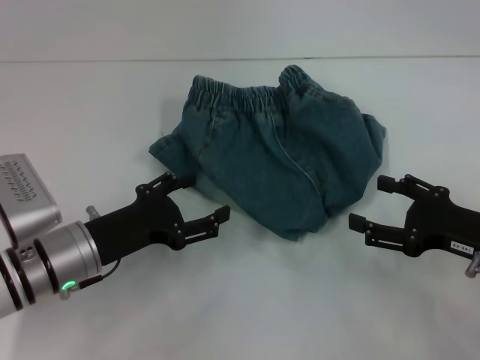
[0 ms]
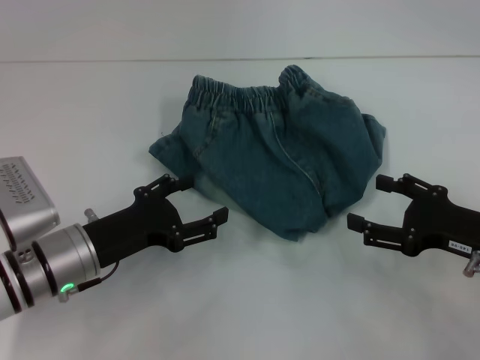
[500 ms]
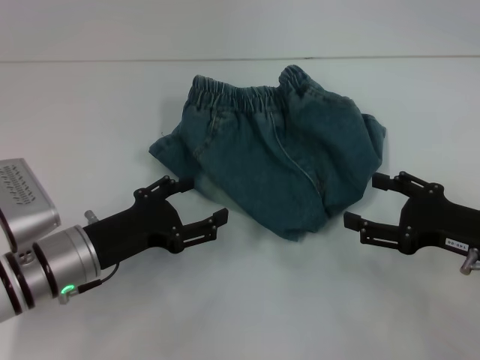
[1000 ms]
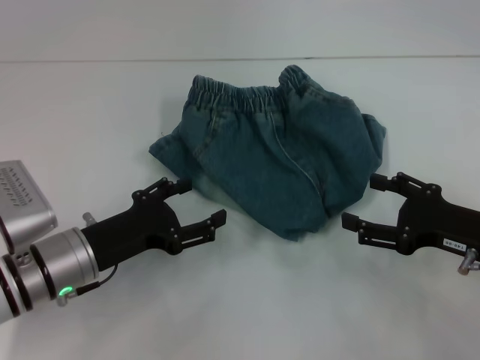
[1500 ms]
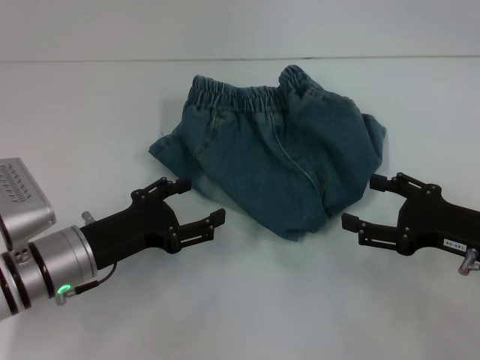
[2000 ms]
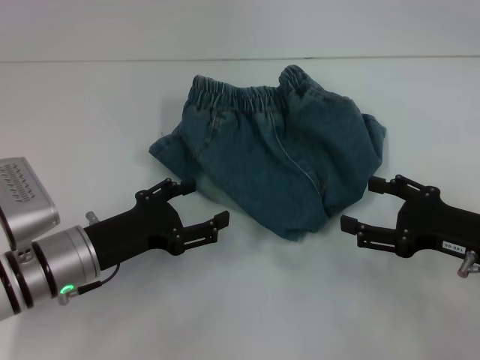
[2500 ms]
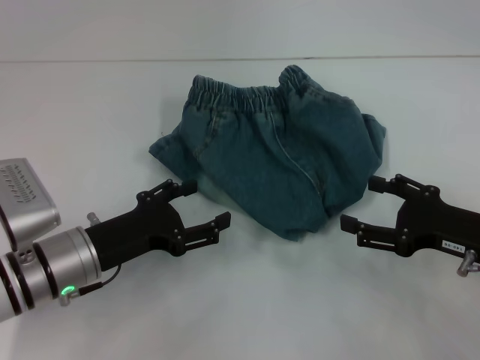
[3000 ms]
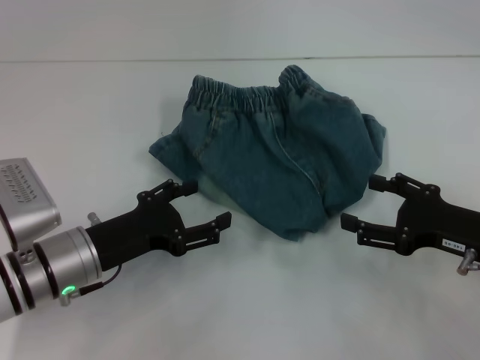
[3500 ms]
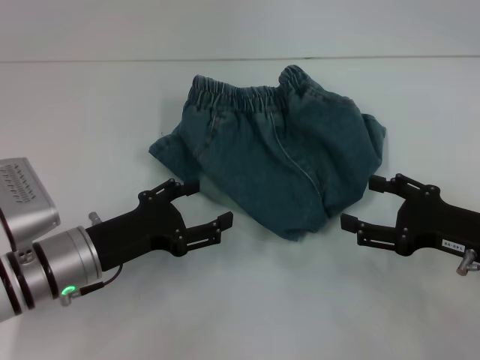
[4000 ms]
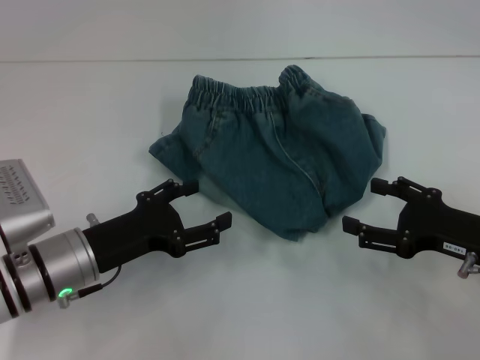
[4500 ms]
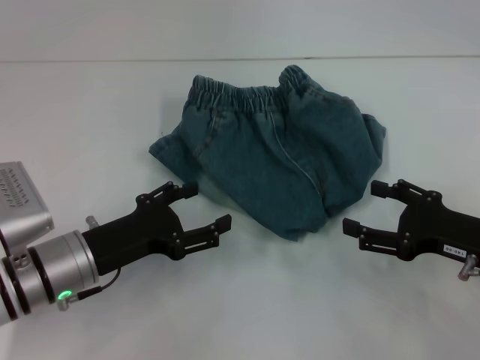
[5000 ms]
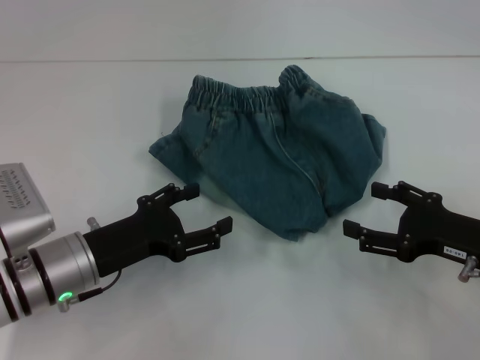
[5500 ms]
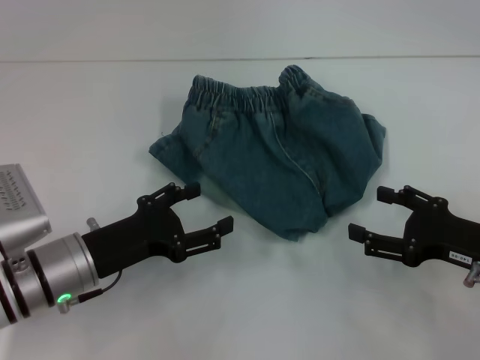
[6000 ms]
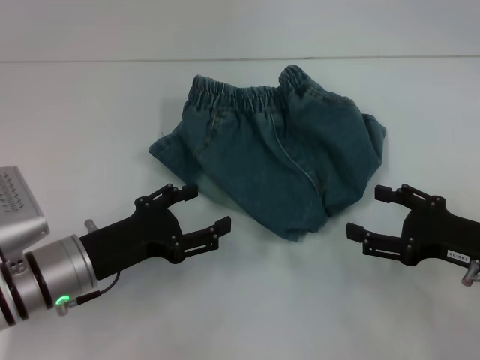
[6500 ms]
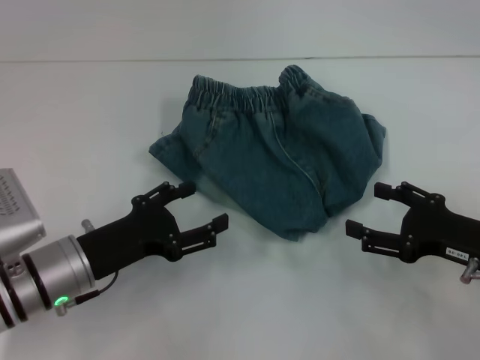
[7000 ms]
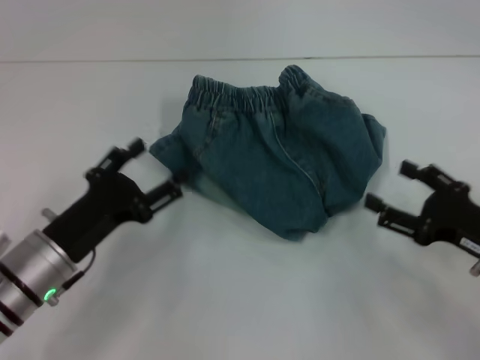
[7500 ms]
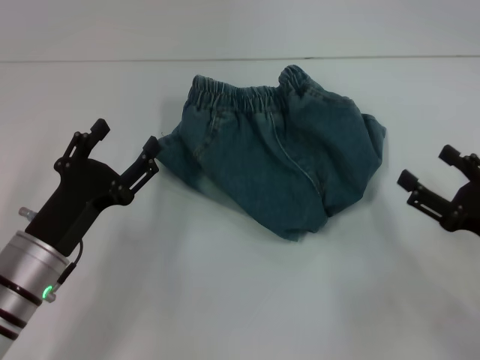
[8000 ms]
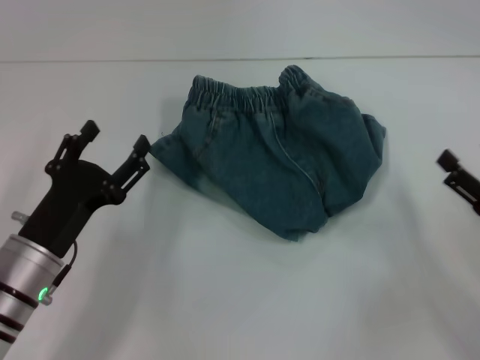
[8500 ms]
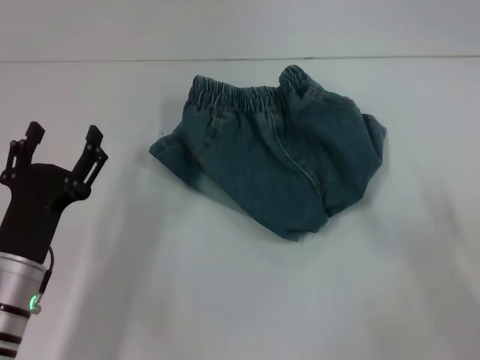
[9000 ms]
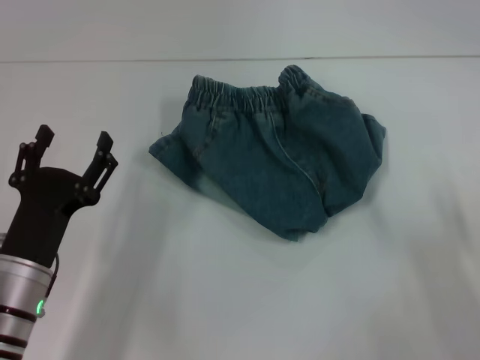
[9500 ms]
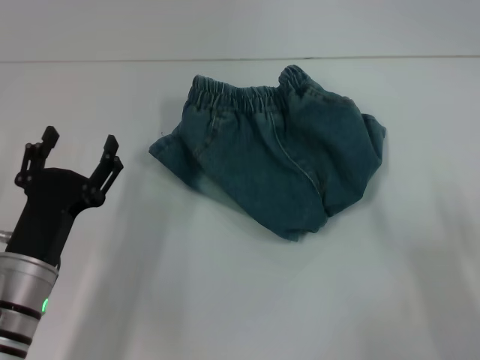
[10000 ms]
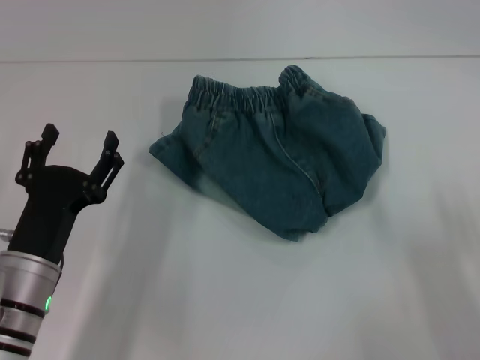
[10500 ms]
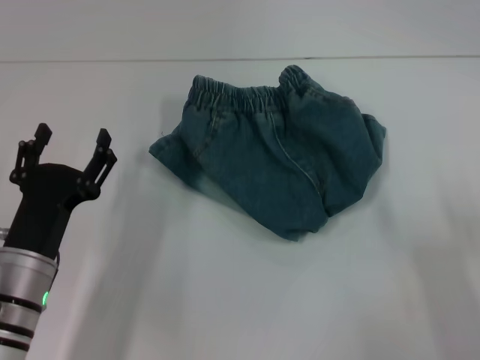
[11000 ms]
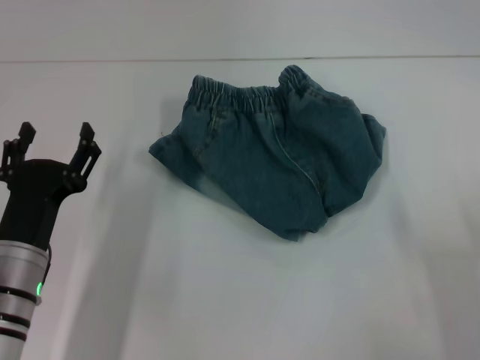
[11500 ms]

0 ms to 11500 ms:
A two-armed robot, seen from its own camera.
0 ms to 6000 ms: Both grippers stay about where they are.
7500 ms to 9500 ms: The right gripper heads backward, covering approximately 5 cm.
9500 ms to 11500 ms: The grippers stay close to where they were, moving slightly.

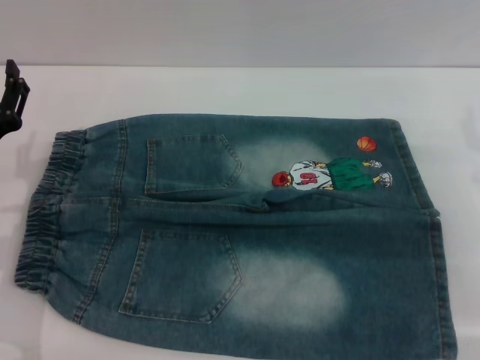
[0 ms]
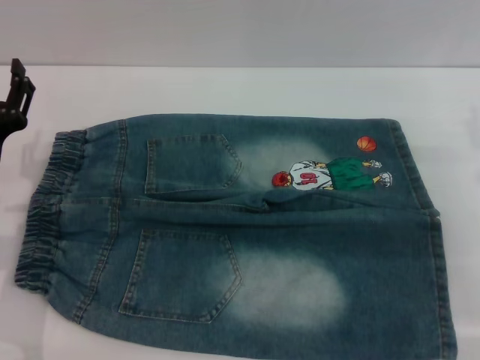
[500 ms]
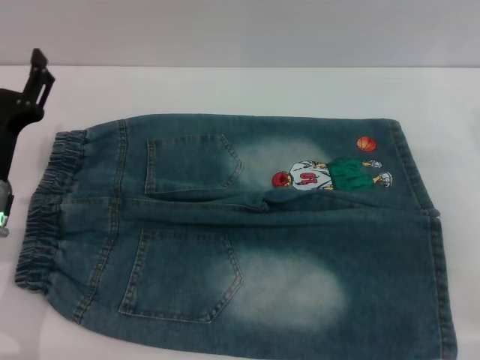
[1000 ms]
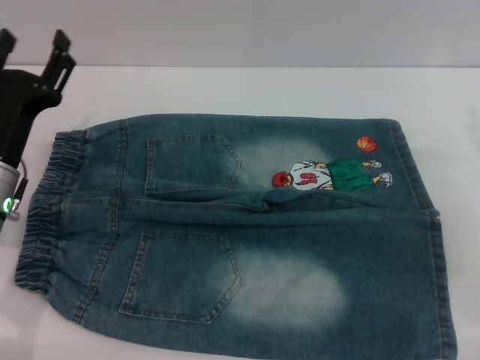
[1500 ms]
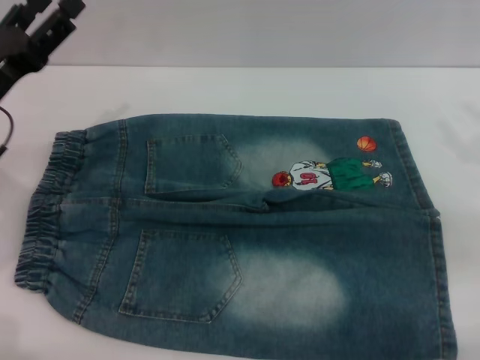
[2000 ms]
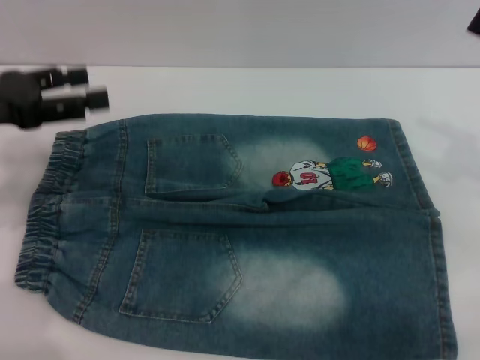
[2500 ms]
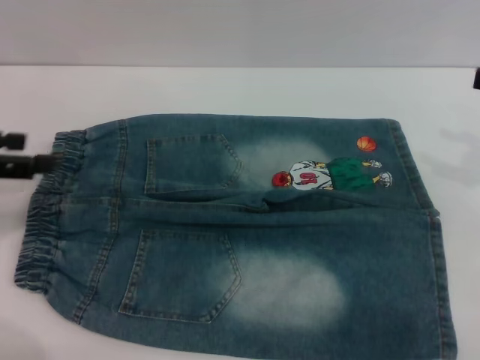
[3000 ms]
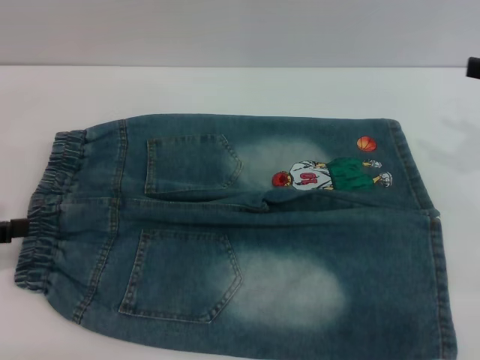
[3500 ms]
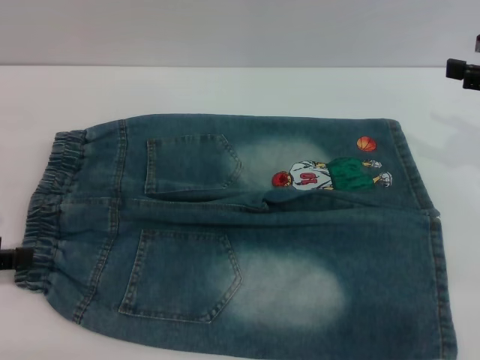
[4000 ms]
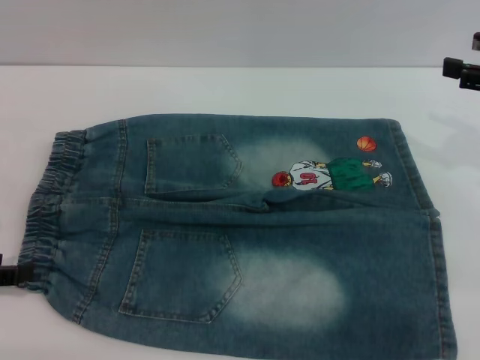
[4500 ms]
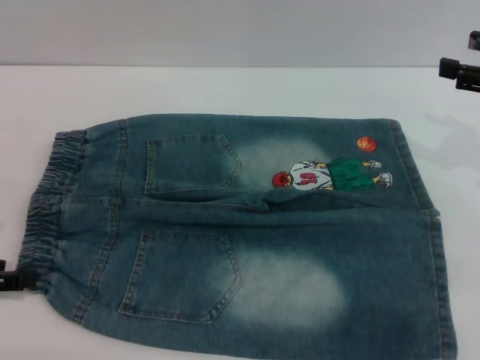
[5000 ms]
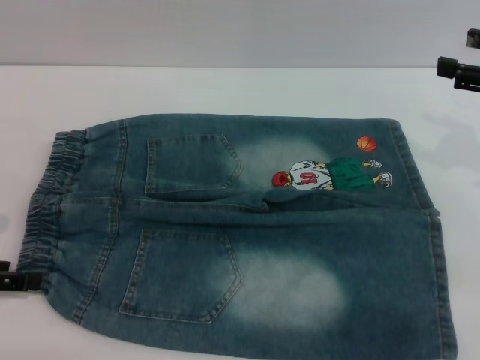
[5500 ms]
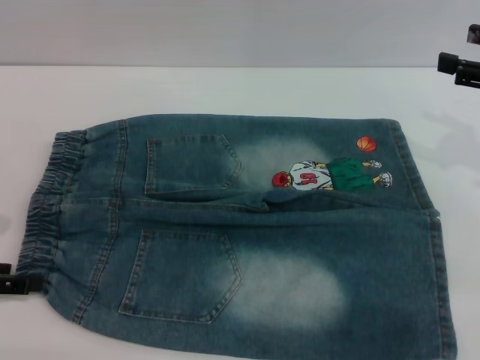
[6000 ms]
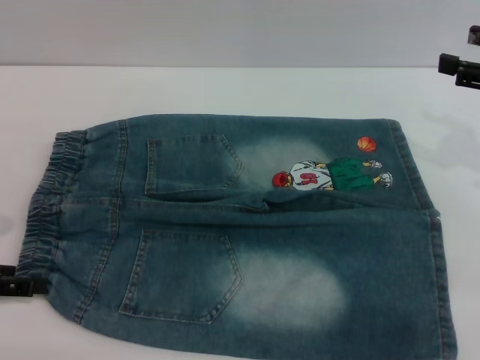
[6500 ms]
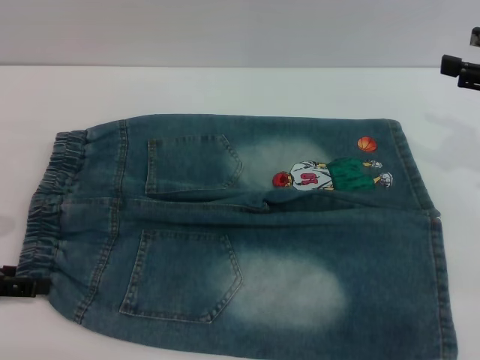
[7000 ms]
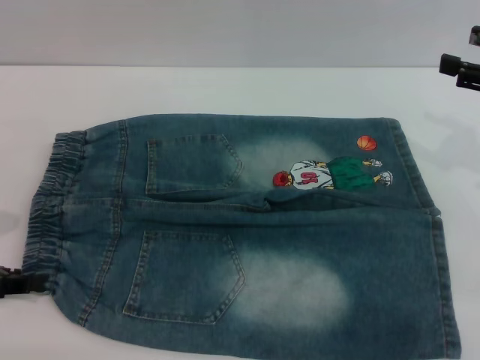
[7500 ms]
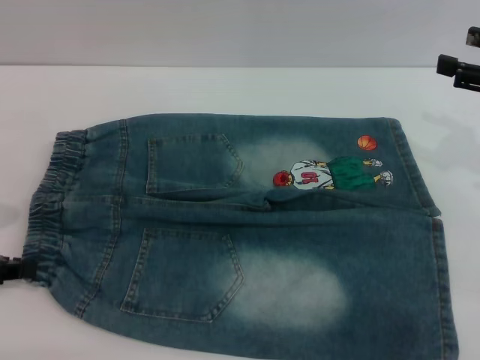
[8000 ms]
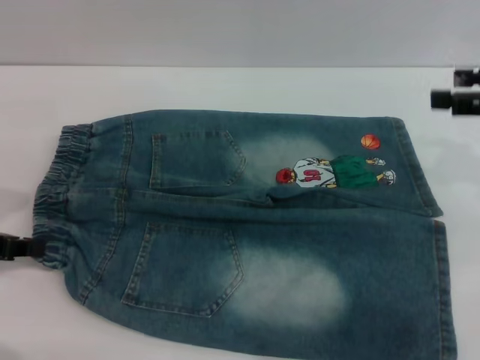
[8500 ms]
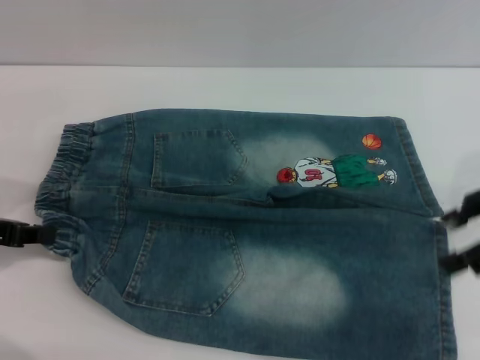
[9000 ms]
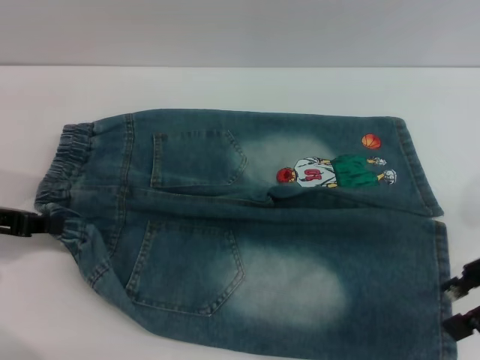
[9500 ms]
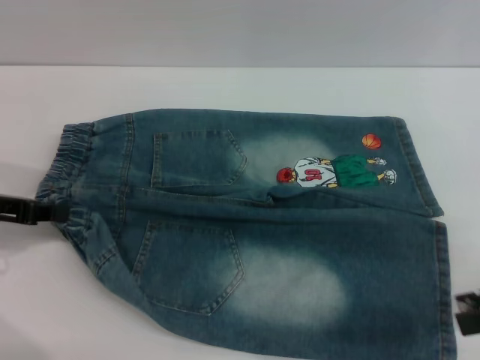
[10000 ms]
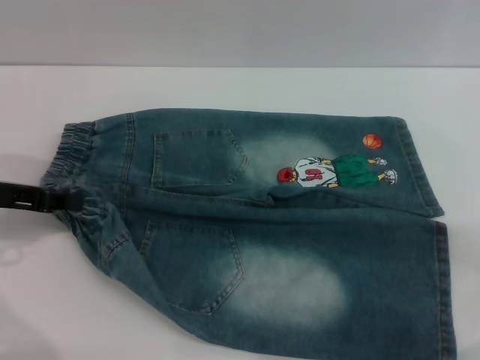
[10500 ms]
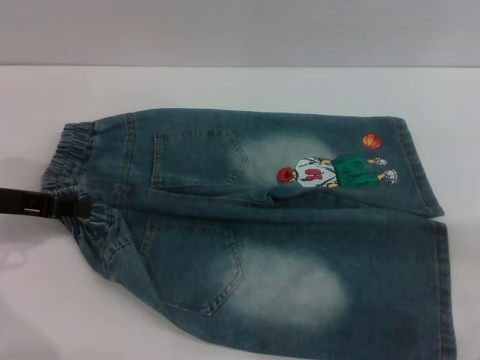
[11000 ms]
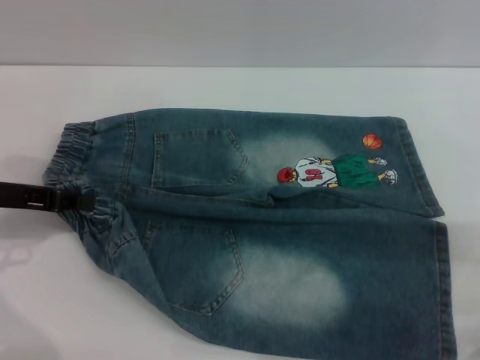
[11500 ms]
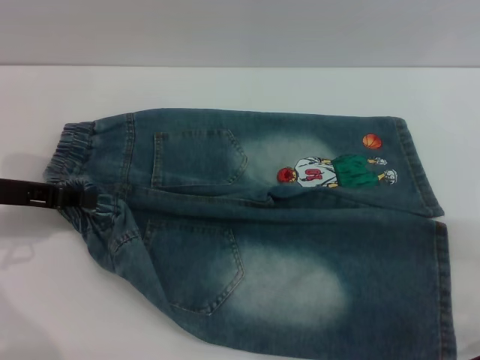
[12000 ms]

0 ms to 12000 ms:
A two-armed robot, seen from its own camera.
0 ms to 2000 ms: The left gripper travels upward by approximately 5 cm.
2000 ms to 4000 ms: The left gripper heads to the left and backward, covering about 10 cm.
4000 ms to 6000 ms: The grippers move only a little.
6000 ms to 8000 ms: The left gripper closes.
8000 ms to 10000 ms: The right gripper is displaced backward by about 10 cm. The left gripper shifts by some 5 cm.

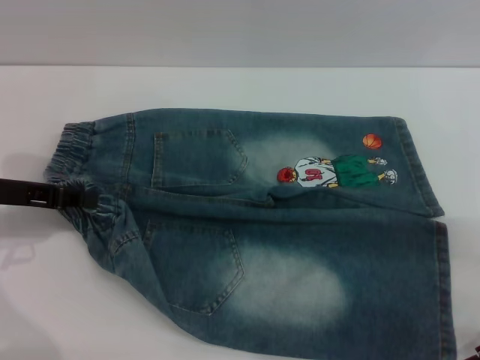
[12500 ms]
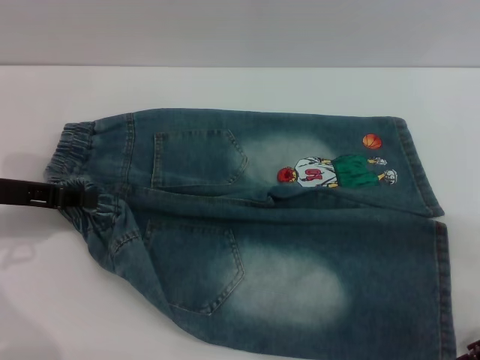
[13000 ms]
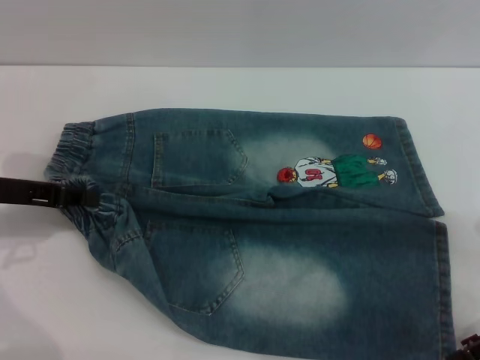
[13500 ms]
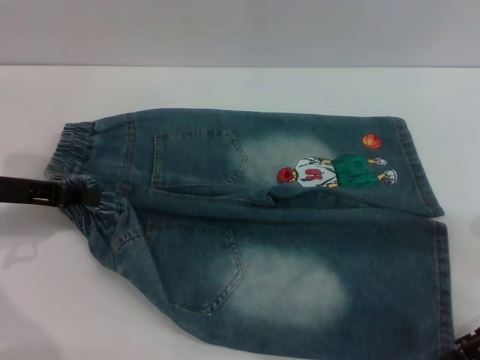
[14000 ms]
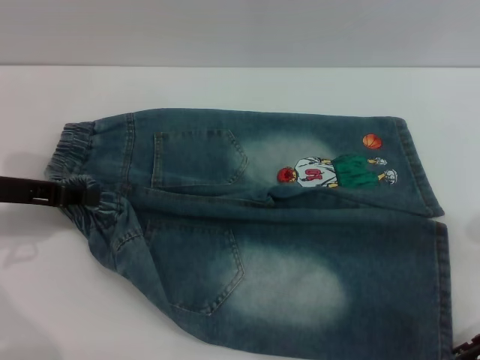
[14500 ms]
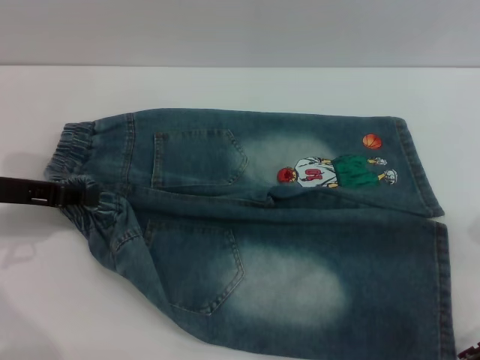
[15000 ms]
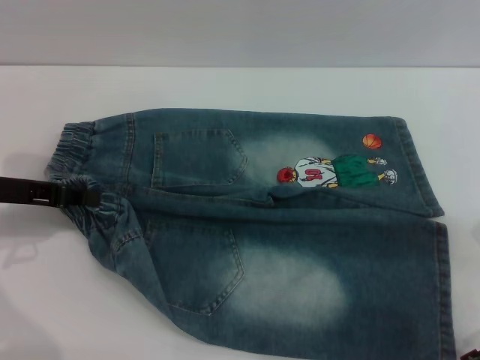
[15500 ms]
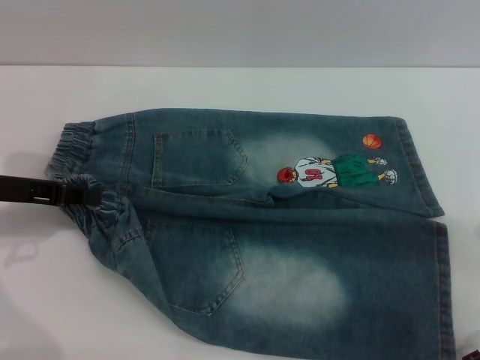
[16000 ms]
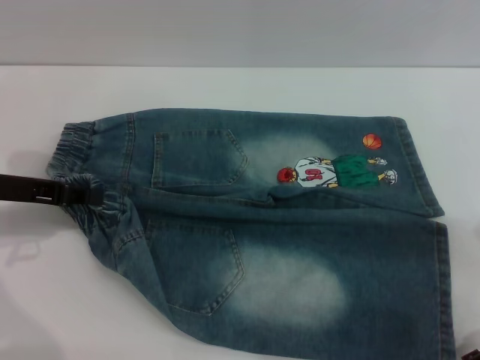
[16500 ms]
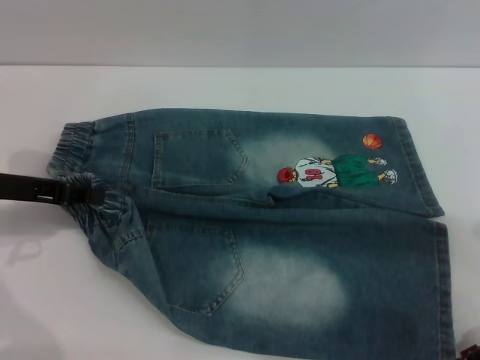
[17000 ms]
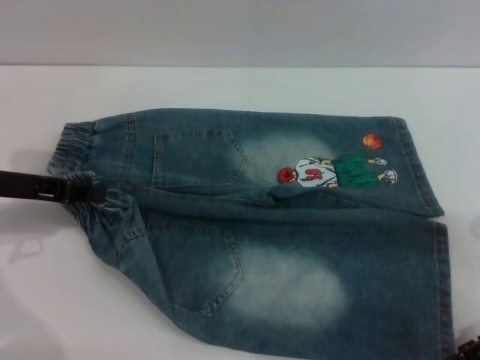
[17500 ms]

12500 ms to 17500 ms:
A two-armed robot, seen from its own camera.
15000 ms to 17500 ms: Both grippers stay about where they are.
